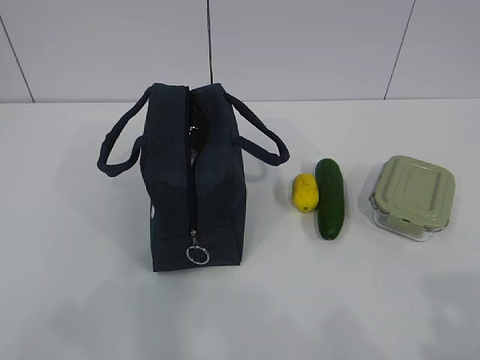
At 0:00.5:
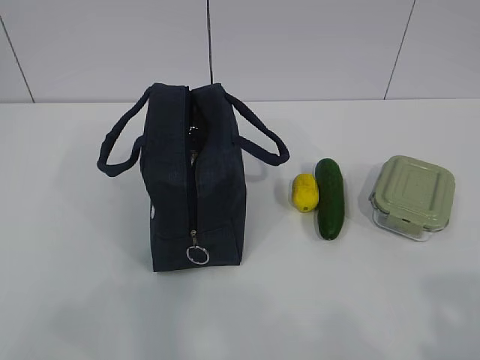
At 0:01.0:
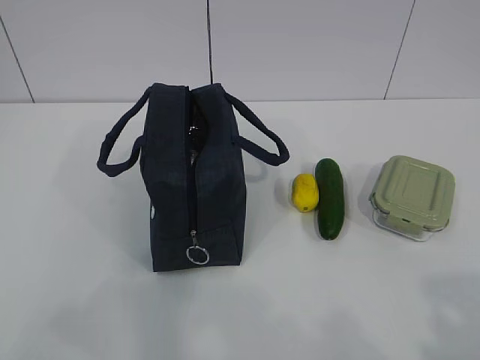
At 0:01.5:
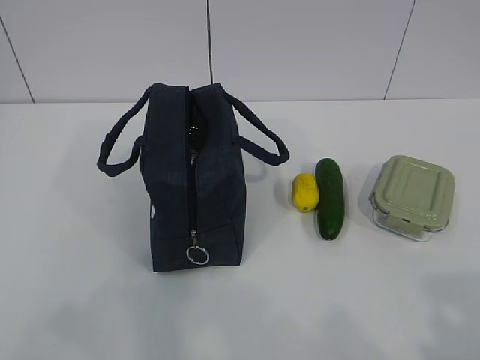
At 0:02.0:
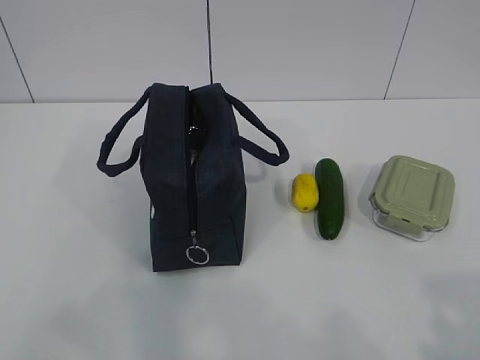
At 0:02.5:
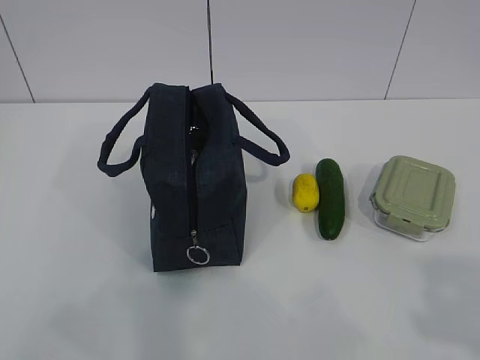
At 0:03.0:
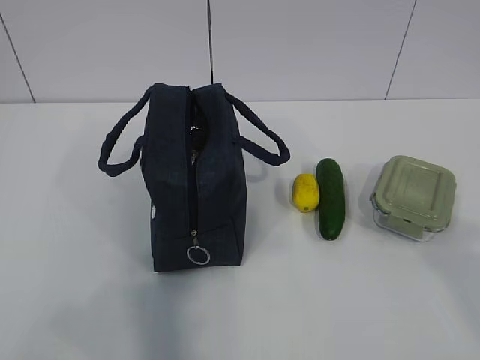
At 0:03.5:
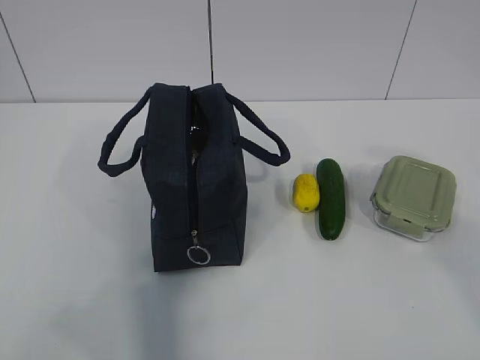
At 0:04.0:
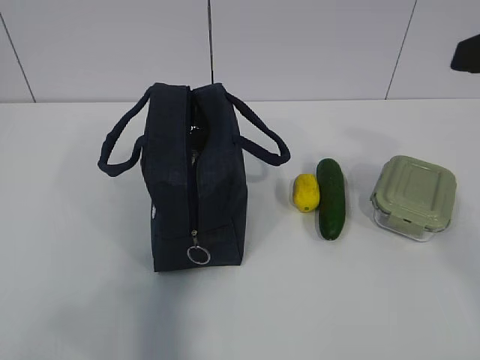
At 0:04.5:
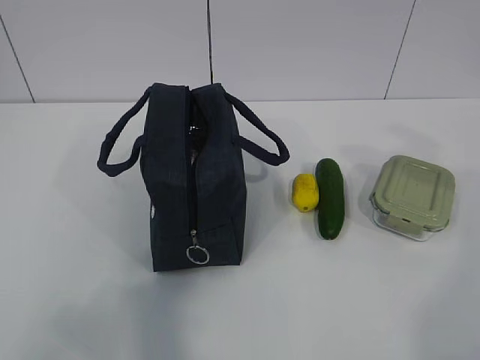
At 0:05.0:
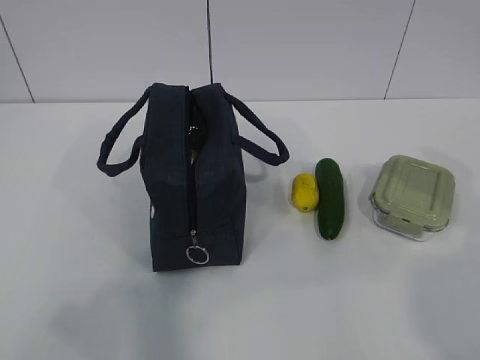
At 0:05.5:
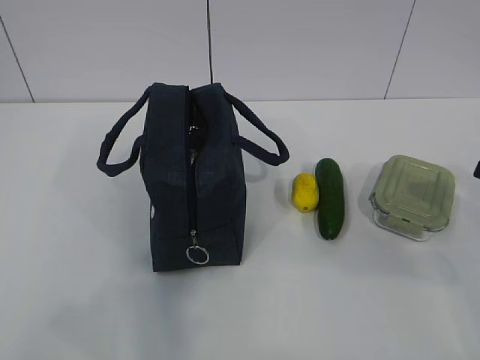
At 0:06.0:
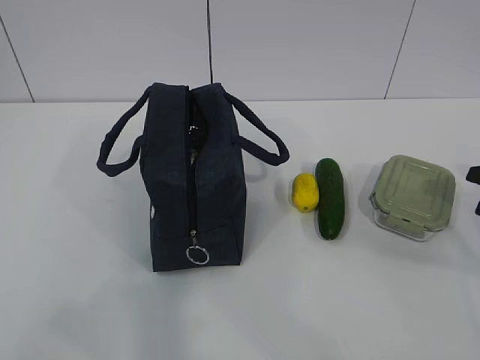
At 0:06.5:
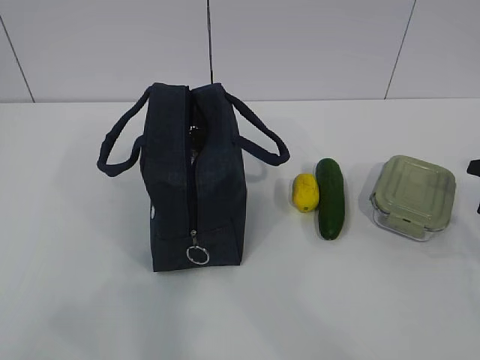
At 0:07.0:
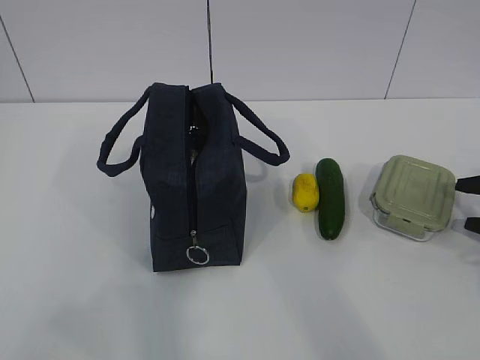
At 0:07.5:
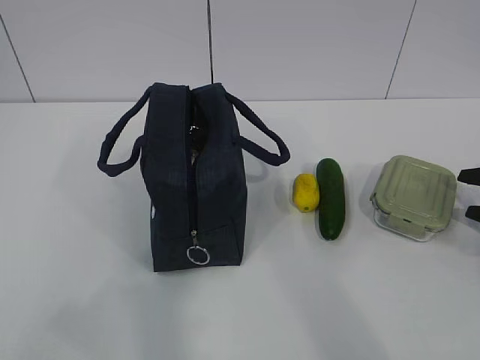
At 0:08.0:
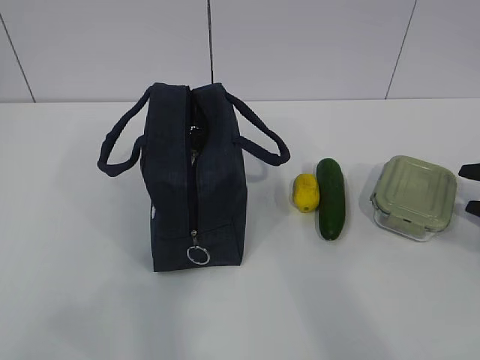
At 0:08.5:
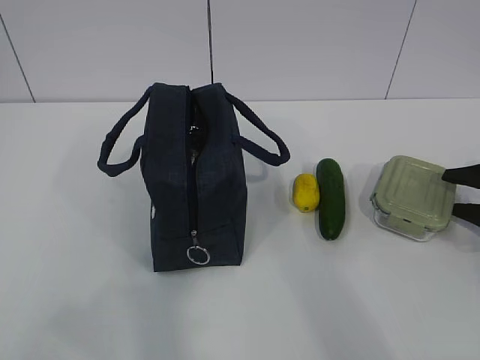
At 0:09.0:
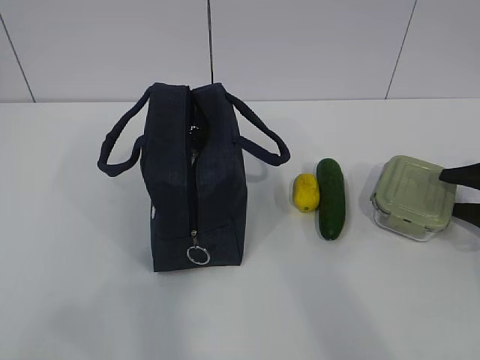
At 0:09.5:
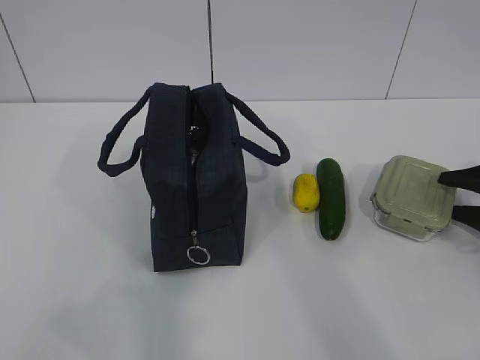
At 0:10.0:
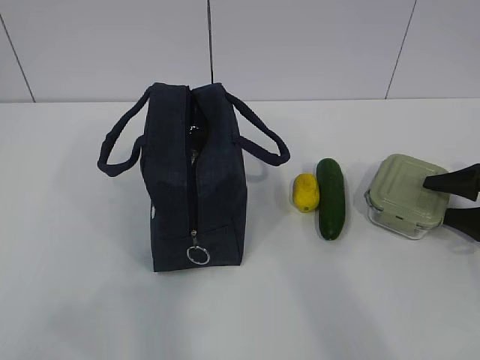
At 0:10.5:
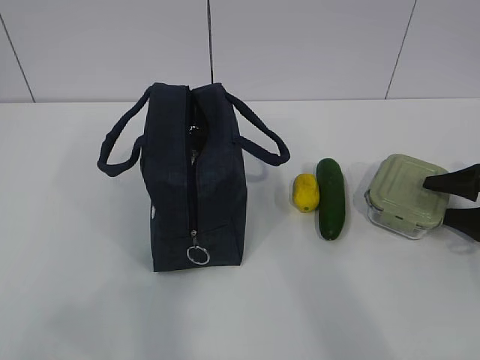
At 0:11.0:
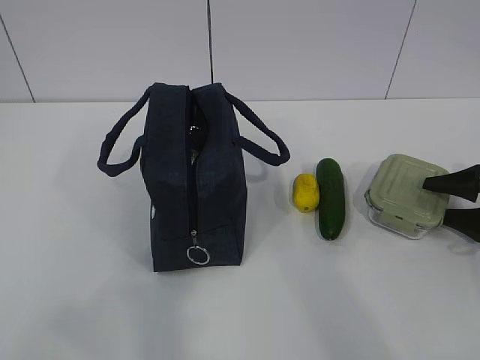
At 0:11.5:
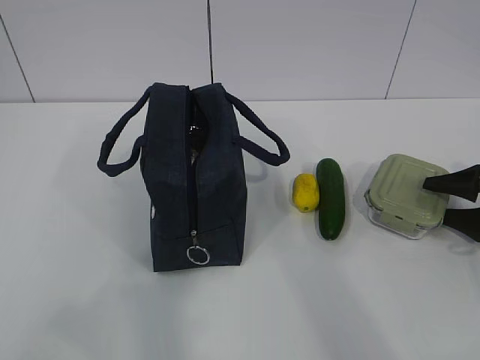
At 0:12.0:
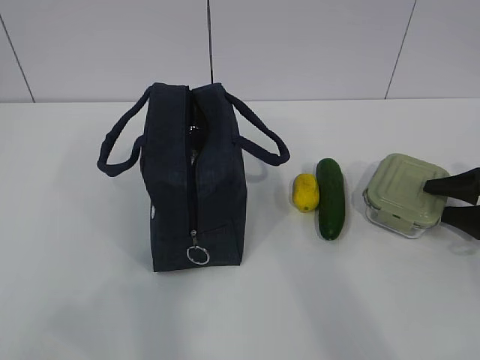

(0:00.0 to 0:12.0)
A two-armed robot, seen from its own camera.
0:02.0 - 0:04.0: The right gripper shifts some 20 cm forward and upward.
0:04.0 - 0:06.0: The right gripper heads downward, to the right and forward, covering about 25 cm.
0:06.0 - 0:08.0: The right gripper goes roughly 10 cm forward and downward.
0:08.0 - 0:10.0: The grippers stay close to where they were, moving slightly.
0:10.0 - 0:12.0: Both grippers stay put.

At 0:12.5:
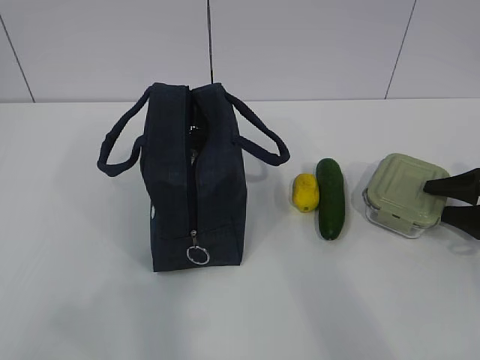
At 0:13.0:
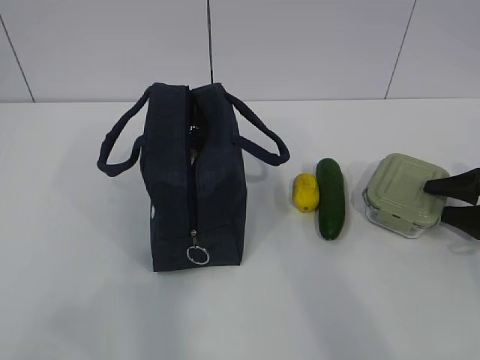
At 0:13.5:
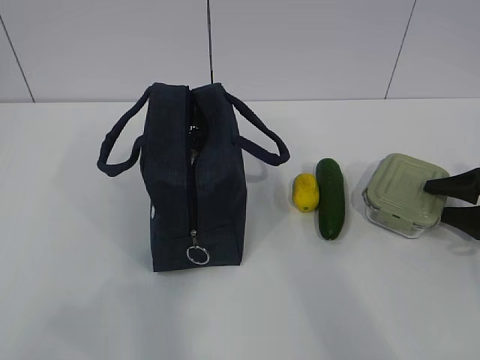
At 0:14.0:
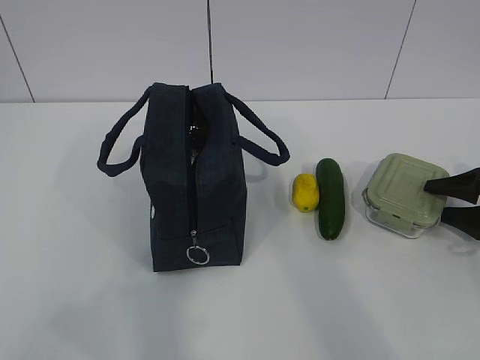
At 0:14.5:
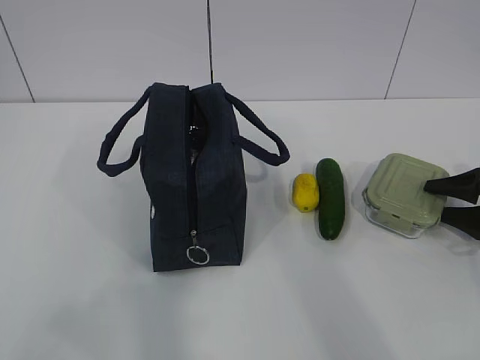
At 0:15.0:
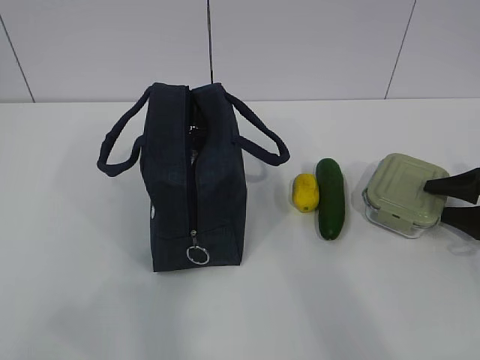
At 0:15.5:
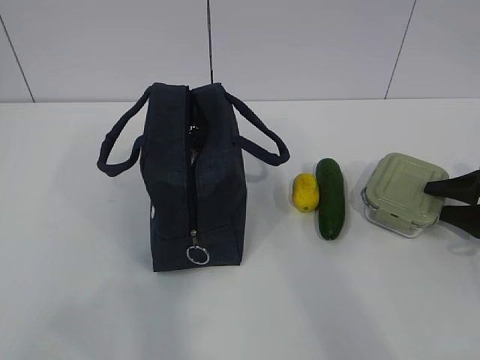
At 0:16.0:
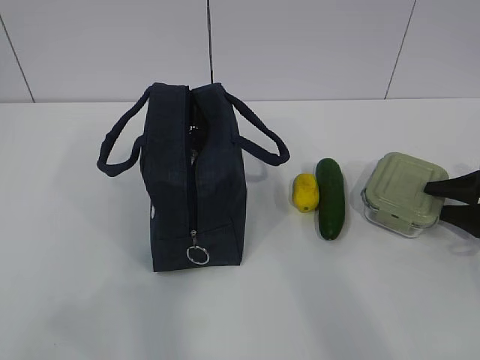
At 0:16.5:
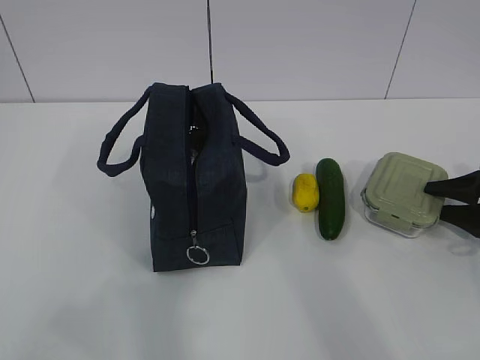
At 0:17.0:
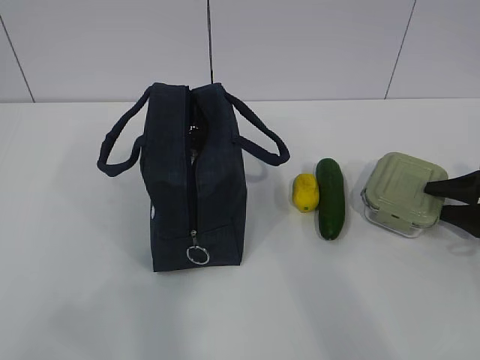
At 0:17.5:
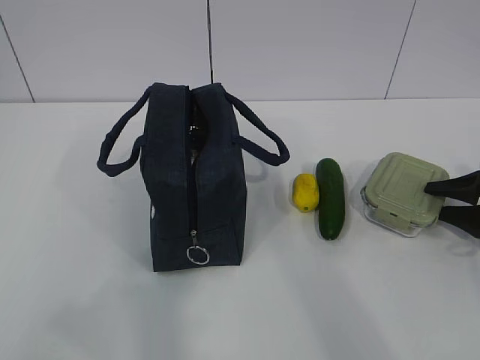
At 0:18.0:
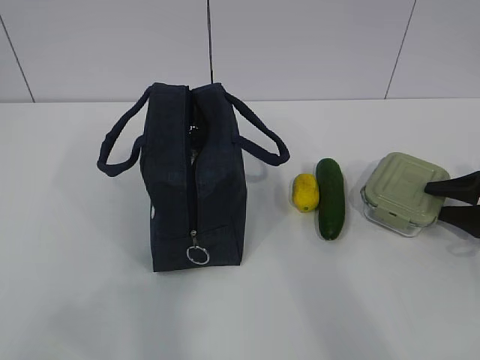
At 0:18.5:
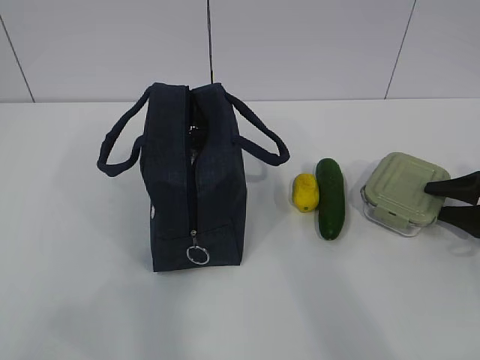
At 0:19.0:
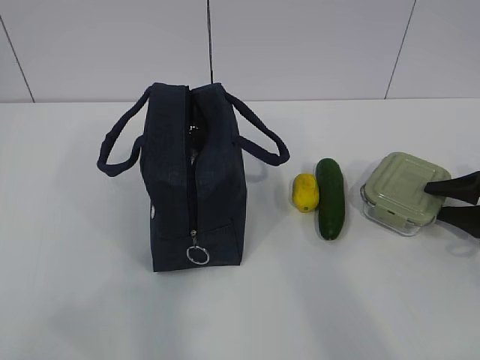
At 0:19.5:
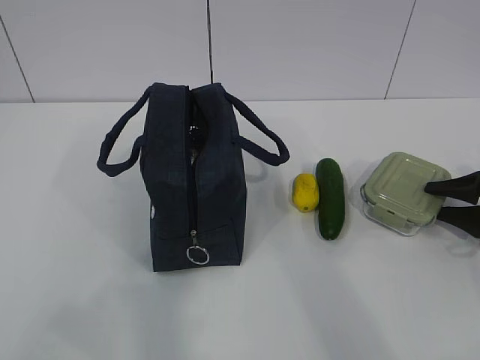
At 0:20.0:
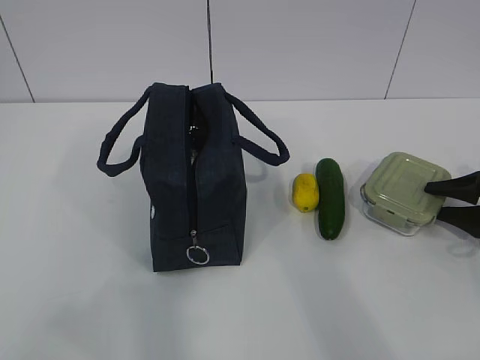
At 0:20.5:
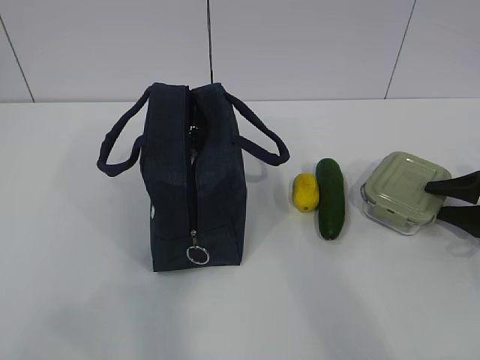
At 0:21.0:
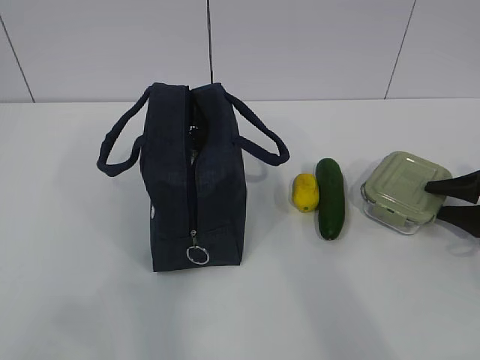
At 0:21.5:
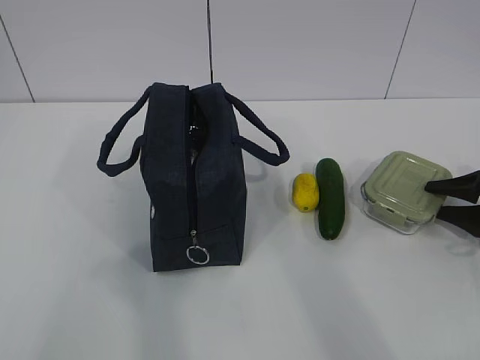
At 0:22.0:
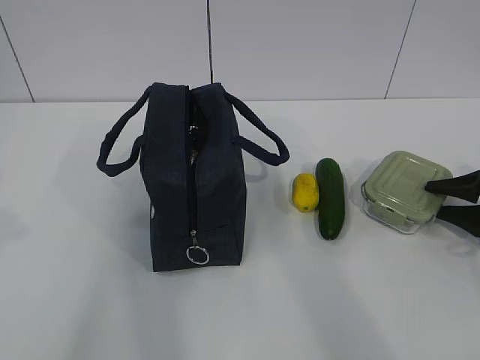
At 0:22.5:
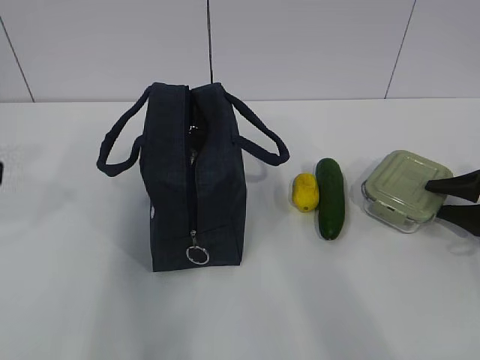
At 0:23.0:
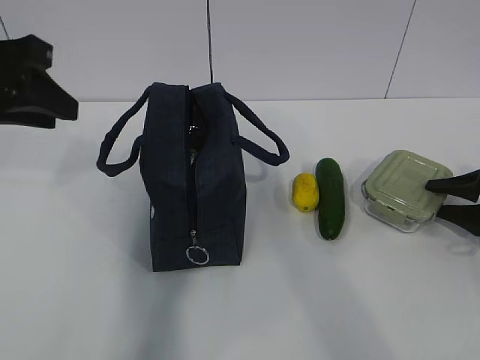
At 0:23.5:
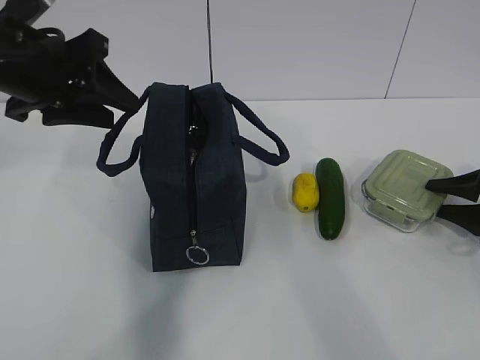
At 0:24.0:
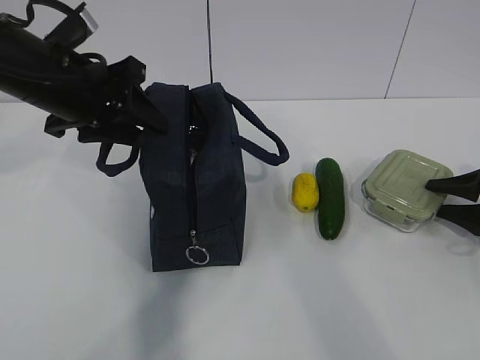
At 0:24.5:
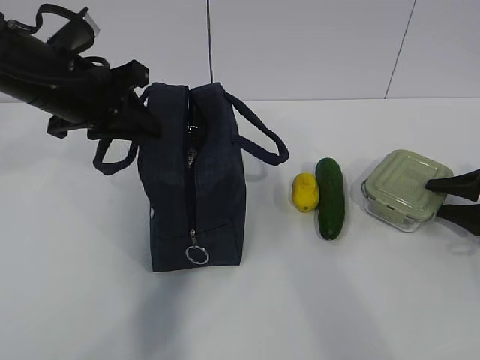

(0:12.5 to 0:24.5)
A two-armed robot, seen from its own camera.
Step, 0:21.0 - 0:24.0: Grab the lunch bag with your left hand.
0:12.5 - 0:16.5: The two grippers keep their place.
0:16.5 - 0:18.5: The two grippers keep their place.
0:18.5 - 0:20.5: Neither gripper changes place.
0:20.5 - 0:22.5: The left gripper is displaced forward by roughly 20 cm.
0:22.5 - 0:24.5: The left gripper shifts approximately 15 cm forward and to the right.

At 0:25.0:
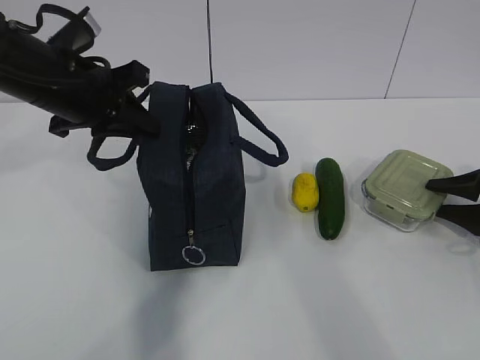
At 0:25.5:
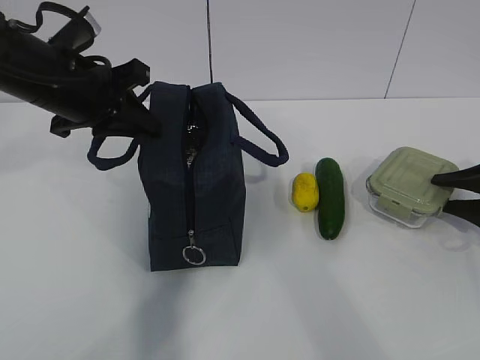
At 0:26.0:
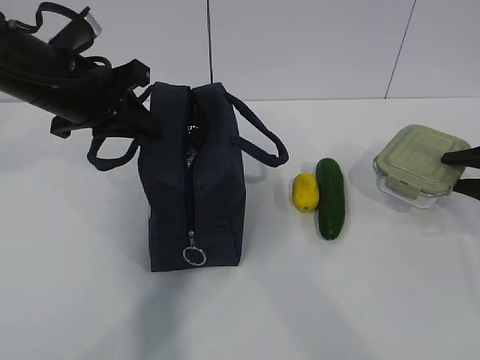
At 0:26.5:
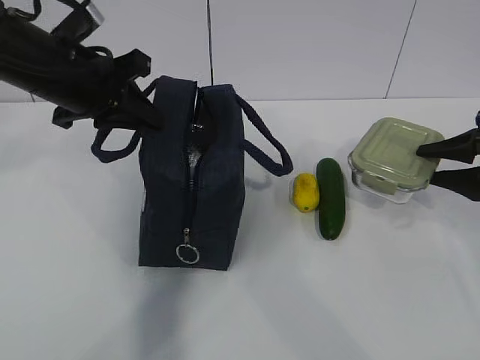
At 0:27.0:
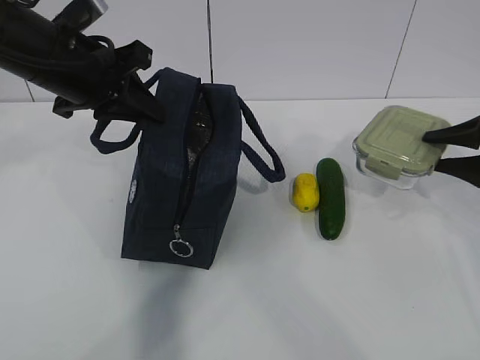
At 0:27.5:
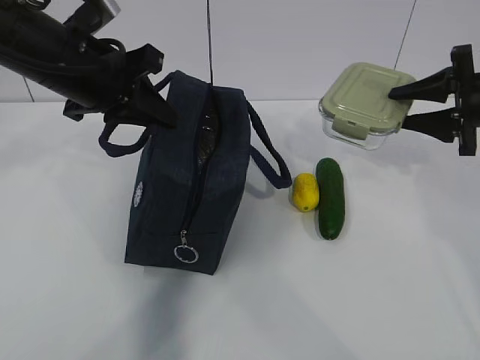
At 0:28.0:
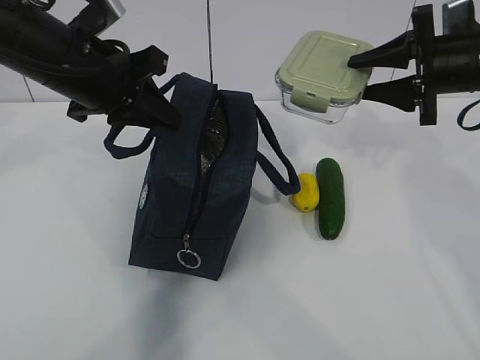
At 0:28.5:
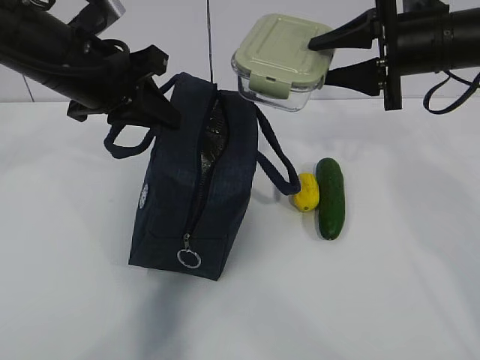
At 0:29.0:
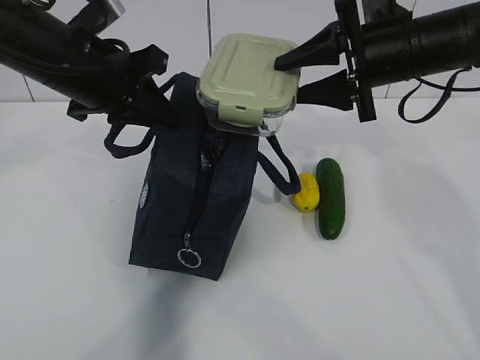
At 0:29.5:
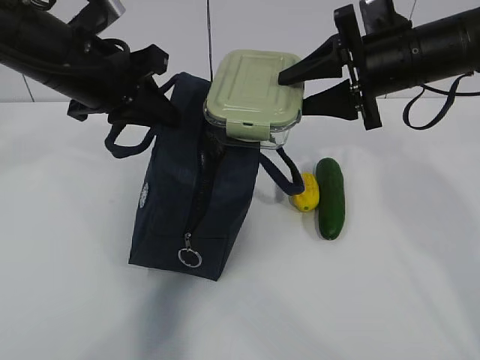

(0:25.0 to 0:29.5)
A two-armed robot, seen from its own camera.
Step, 0:25.0 - 0:27.5: Place it into the bag with your right hand.
0:25.0 - 0:27.0: The right gripper is displaced upward by approximately 10 cm.
0:27.0 - 0:29.5: The right gripper is displaced to the left and upward by about 20 cm.
